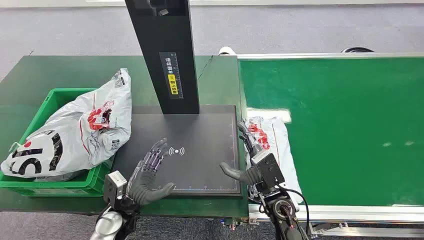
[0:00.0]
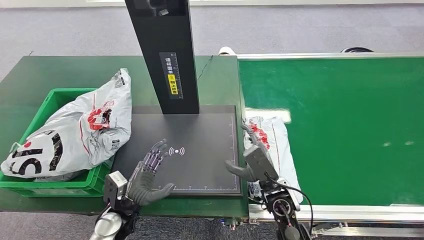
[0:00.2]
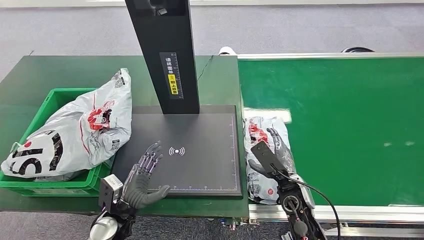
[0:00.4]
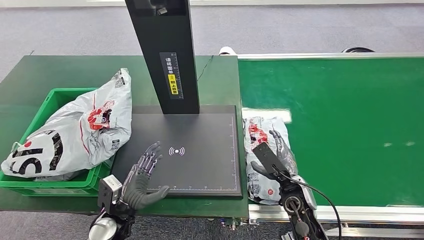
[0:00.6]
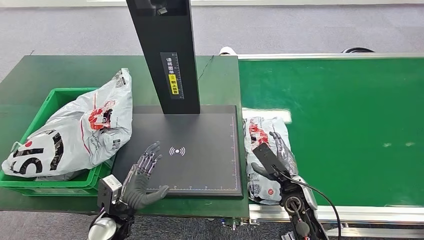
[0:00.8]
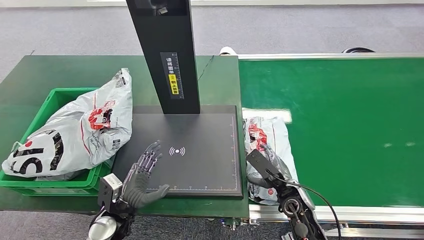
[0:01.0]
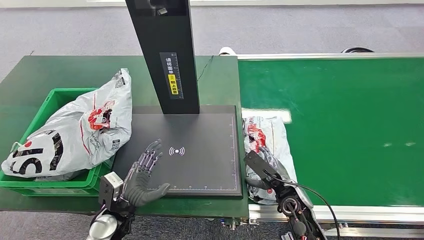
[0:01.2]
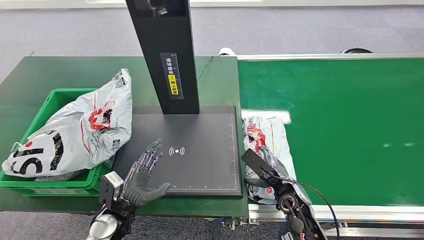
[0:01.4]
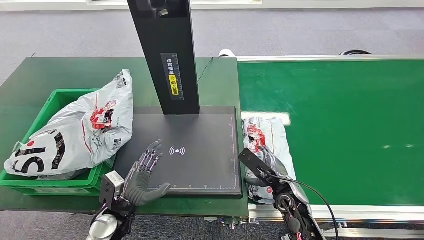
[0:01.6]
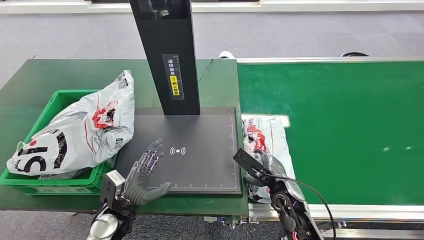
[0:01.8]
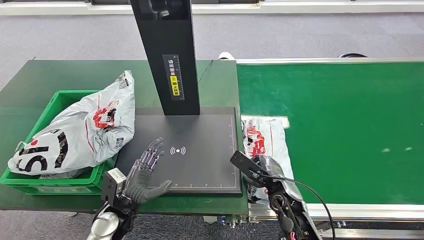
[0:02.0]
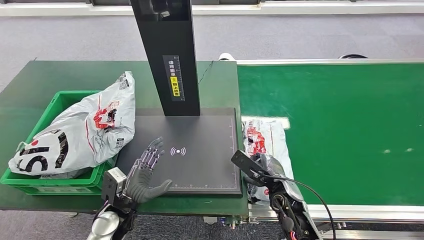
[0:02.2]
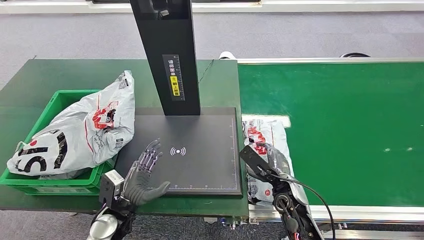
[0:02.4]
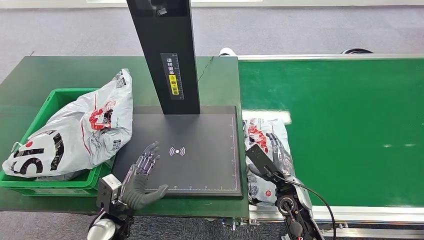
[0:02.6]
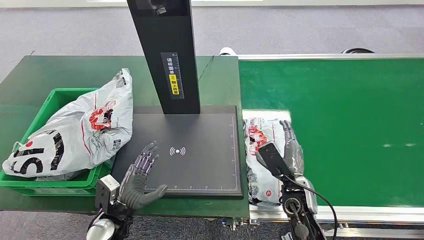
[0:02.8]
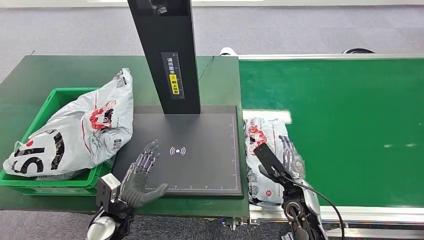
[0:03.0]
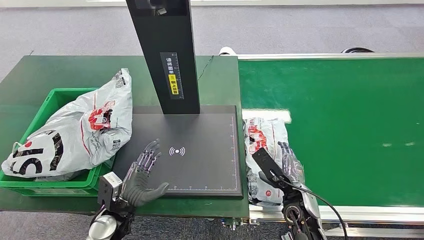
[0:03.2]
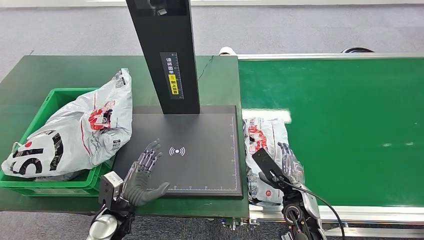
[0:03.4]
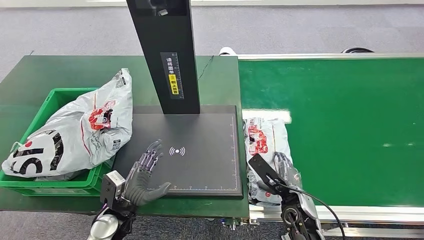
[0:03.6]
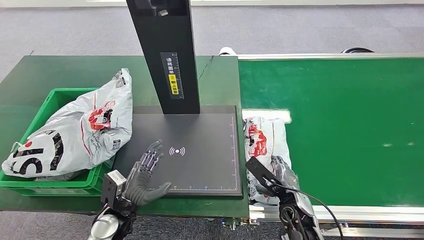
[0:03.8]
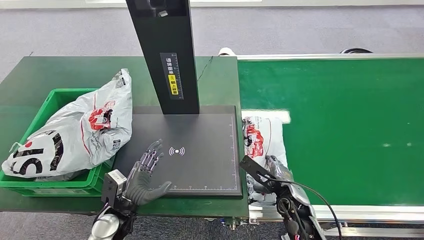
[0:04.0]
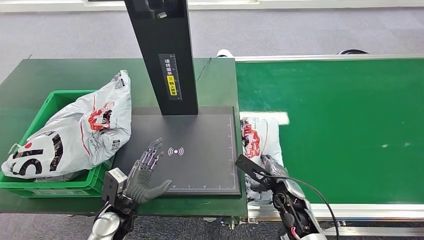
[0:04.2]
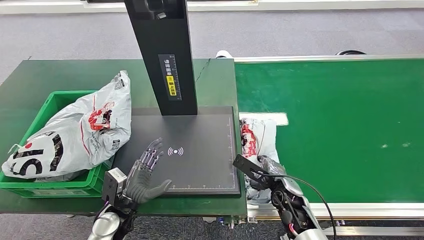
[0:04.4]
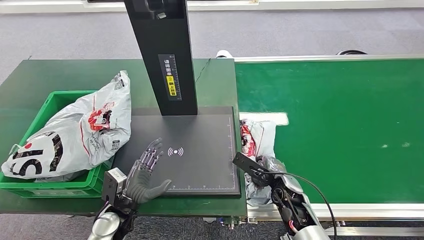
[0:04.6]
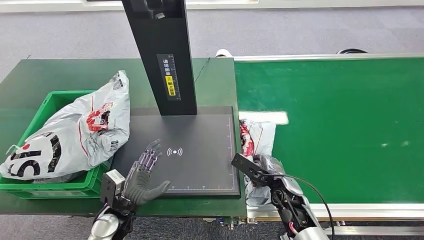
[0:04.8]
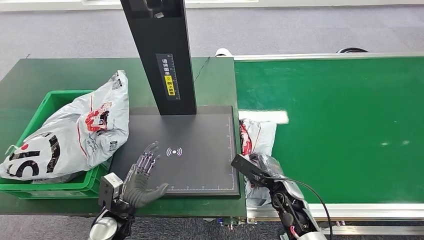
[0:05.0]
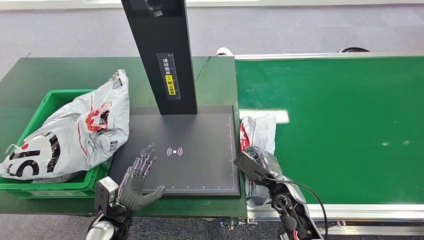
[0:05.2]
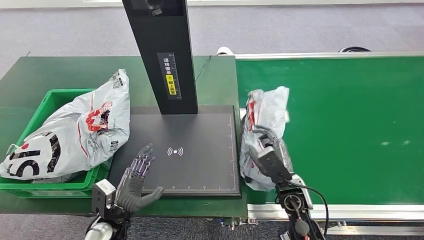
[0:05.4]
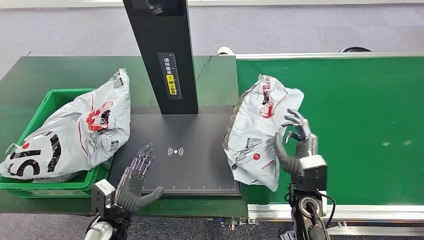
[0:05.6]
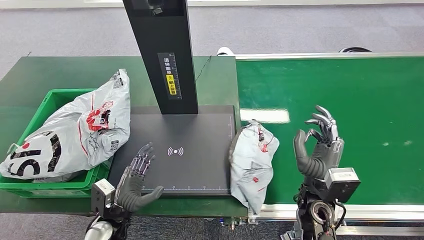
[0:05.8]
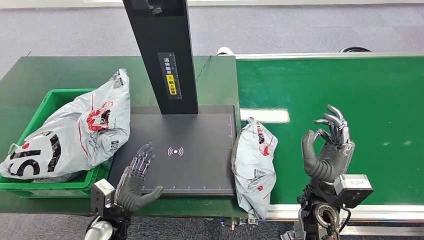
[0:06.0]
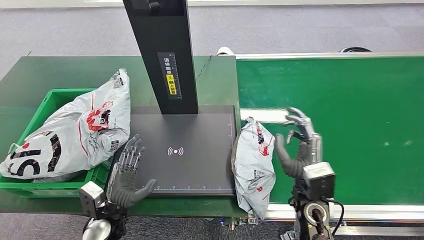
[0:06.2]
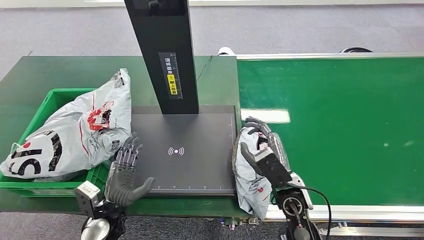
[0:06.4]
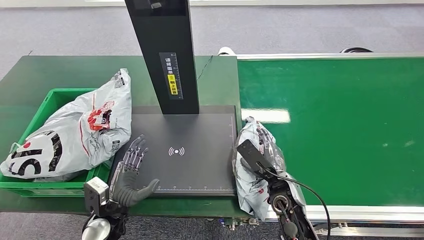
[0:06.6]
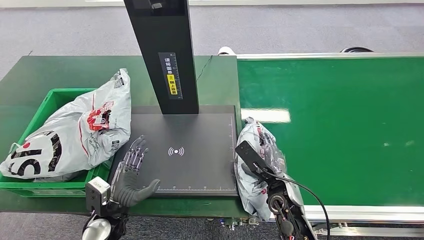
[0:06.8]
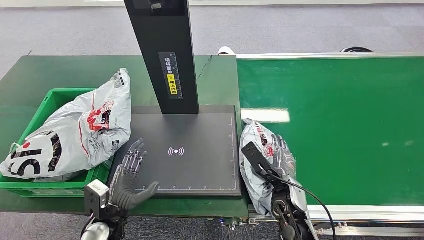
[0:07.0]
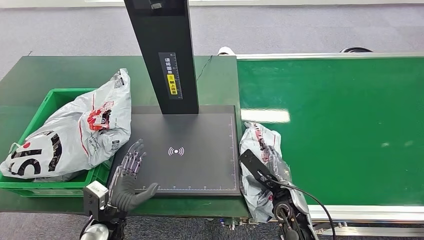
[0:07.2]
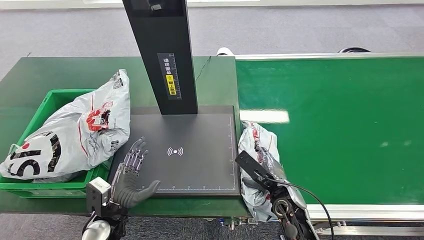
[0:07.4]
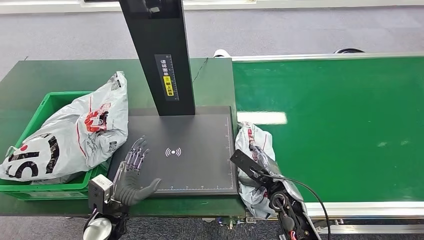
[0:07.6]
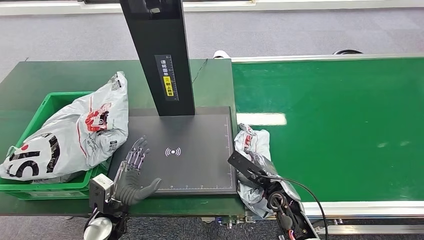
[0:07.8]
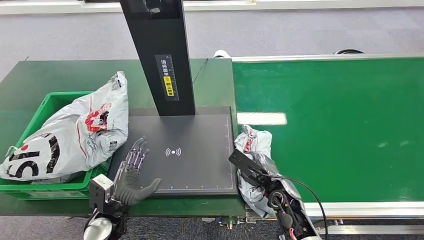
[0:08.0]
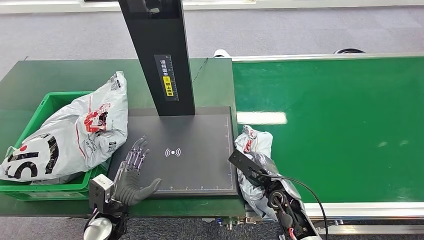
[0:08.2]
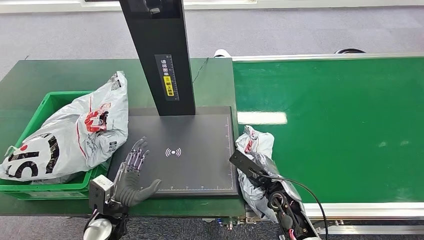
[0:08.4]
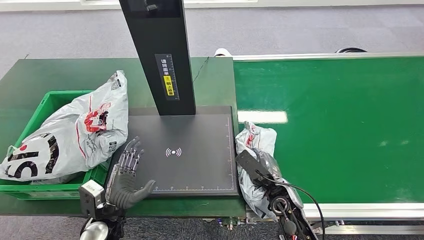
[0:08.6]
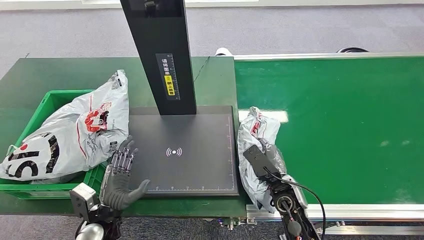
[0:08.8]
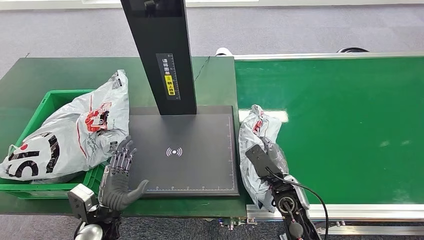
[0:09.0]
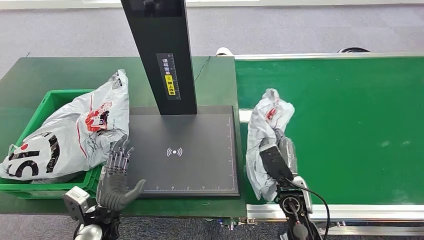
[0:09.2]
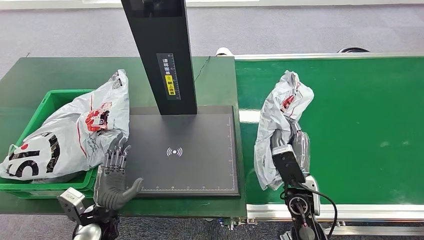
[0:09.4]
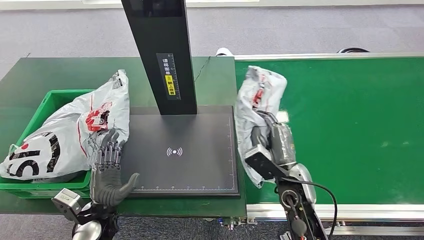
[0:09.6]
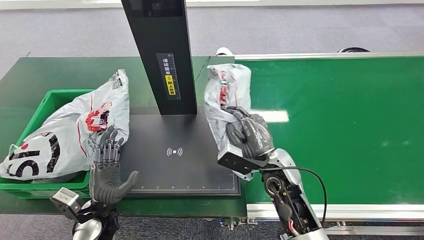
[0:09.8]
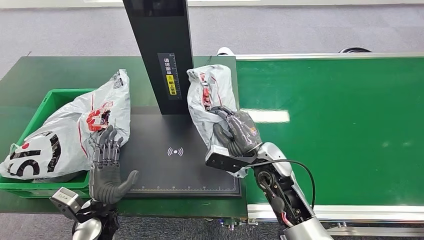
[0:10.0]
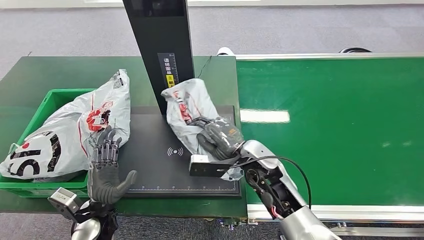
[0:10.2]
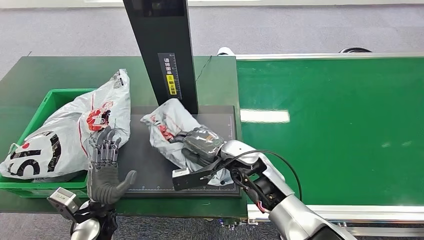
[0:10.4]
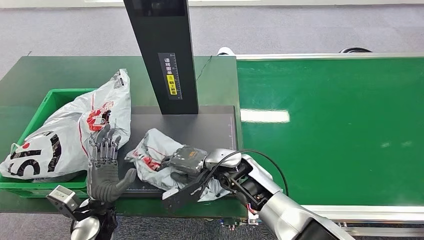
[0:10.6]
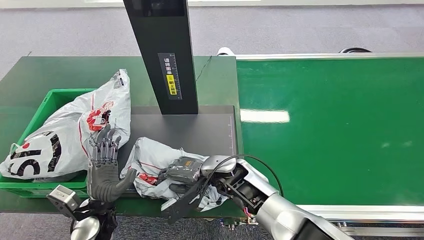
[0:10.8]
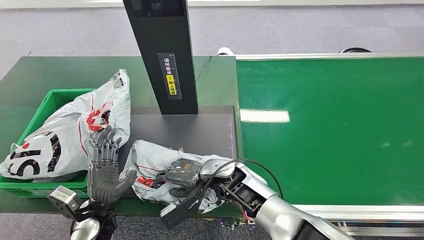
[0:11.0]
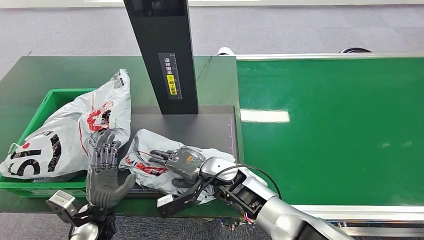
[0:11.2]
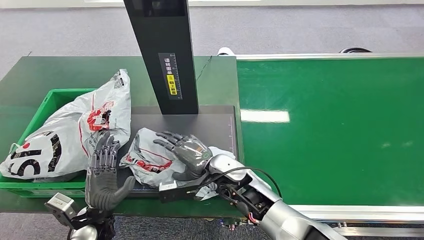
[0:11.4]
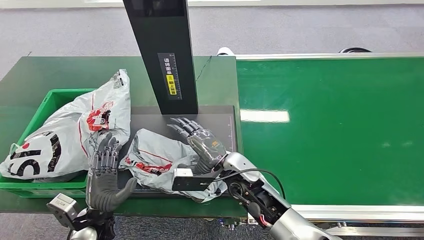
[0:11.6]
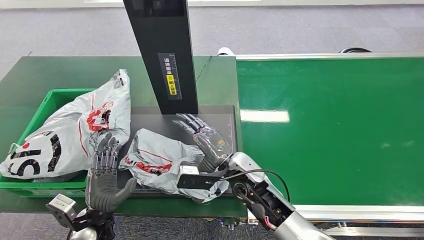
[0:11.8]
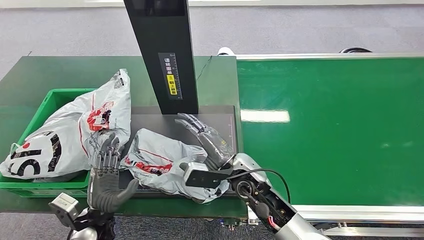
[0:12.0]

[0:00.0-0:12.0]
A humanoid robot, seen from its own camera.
Step, 0:00.0 to 0:09.4: Pick up the package from the conveyor belt.

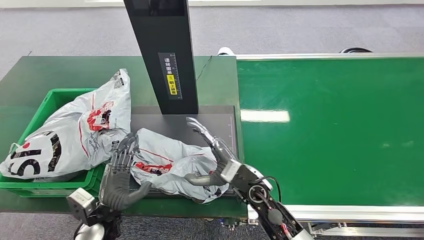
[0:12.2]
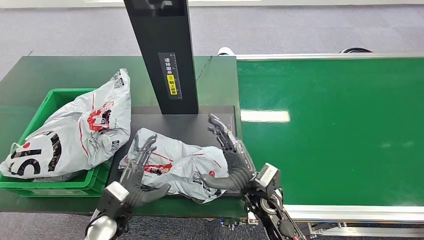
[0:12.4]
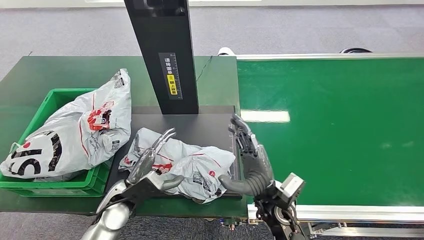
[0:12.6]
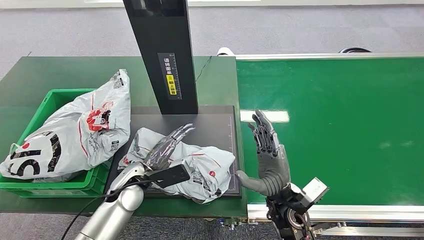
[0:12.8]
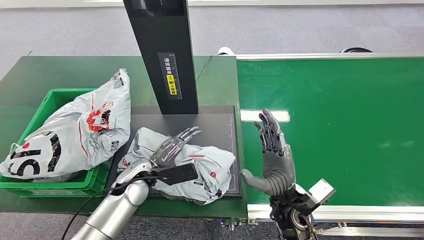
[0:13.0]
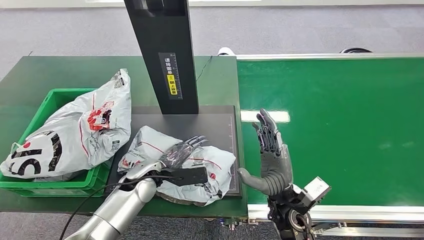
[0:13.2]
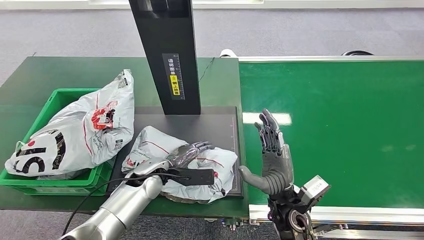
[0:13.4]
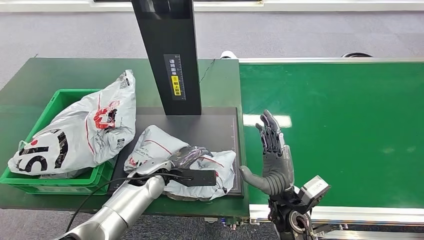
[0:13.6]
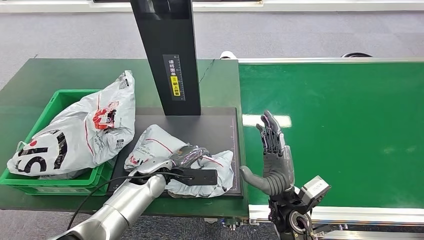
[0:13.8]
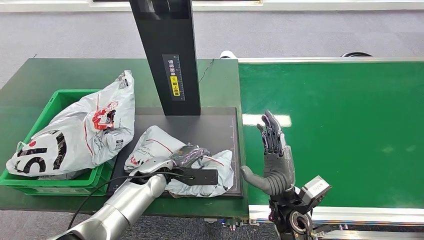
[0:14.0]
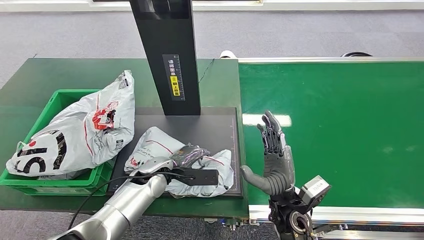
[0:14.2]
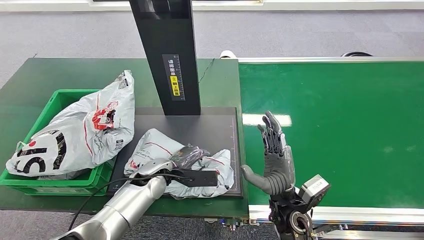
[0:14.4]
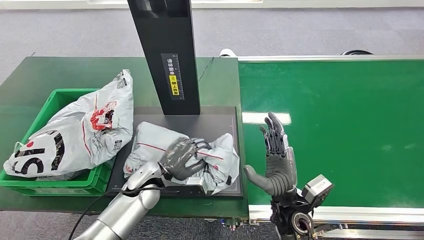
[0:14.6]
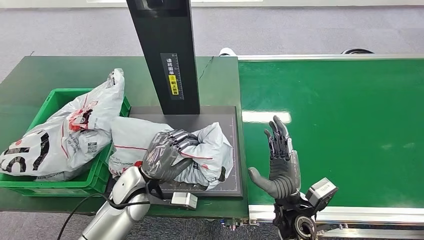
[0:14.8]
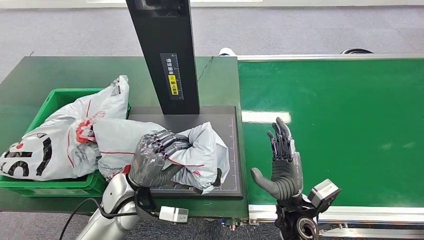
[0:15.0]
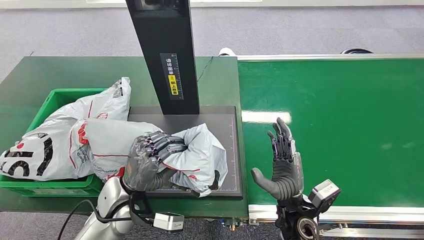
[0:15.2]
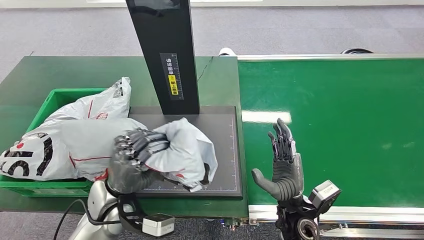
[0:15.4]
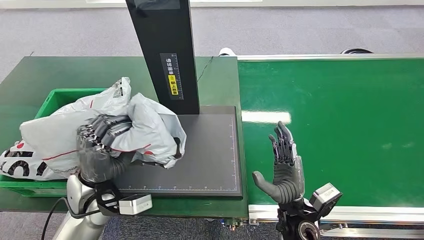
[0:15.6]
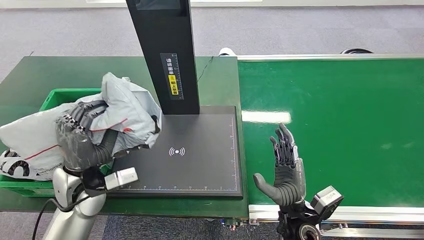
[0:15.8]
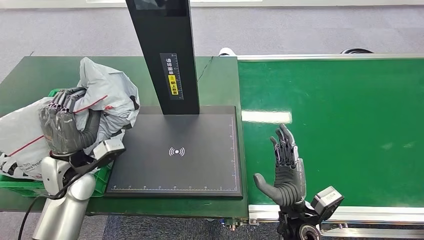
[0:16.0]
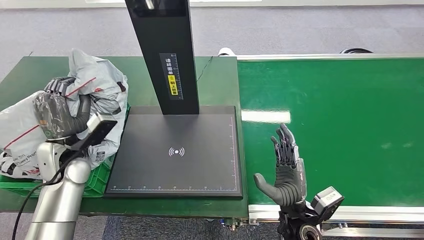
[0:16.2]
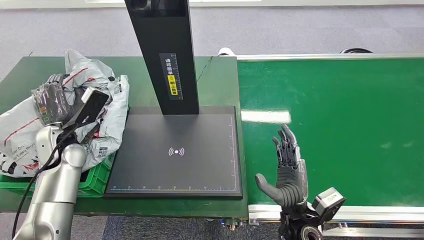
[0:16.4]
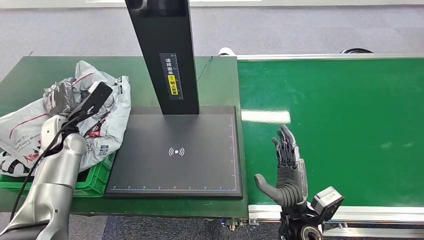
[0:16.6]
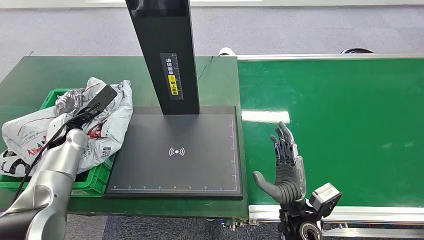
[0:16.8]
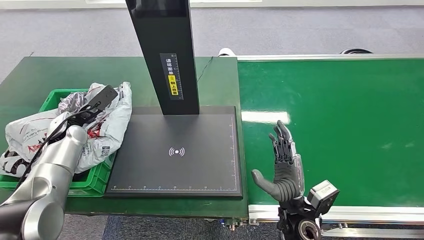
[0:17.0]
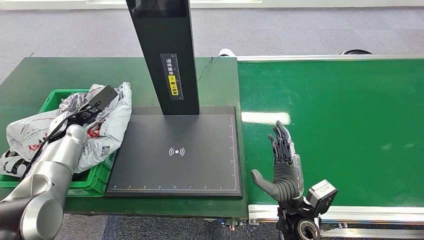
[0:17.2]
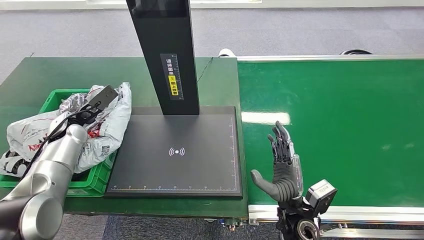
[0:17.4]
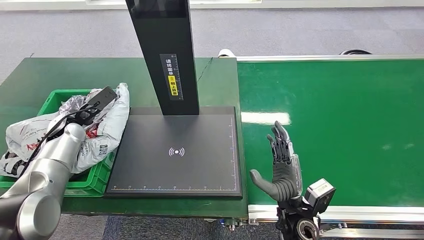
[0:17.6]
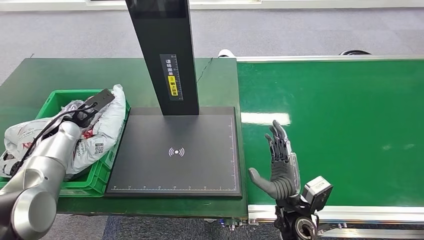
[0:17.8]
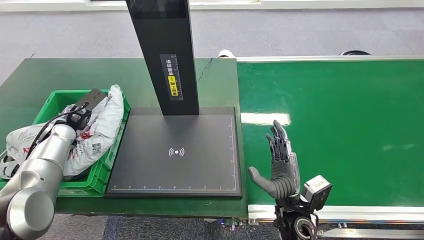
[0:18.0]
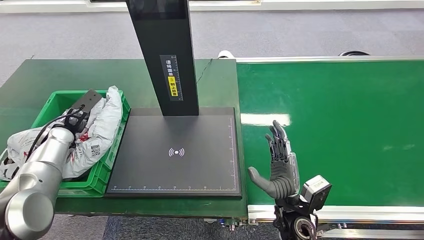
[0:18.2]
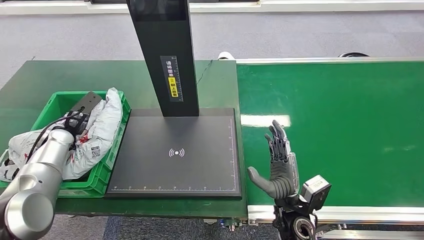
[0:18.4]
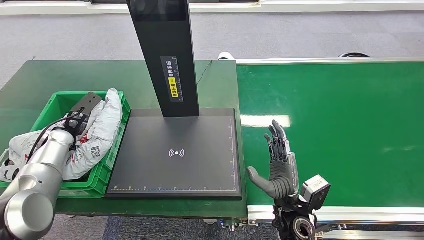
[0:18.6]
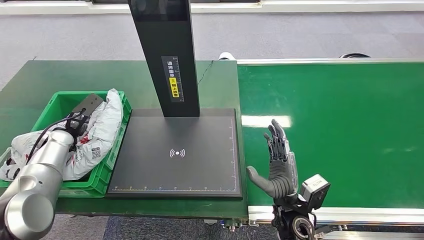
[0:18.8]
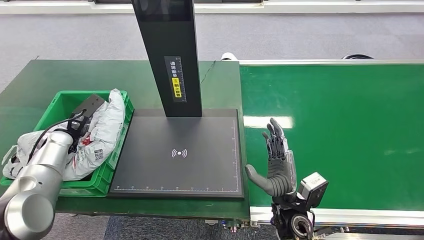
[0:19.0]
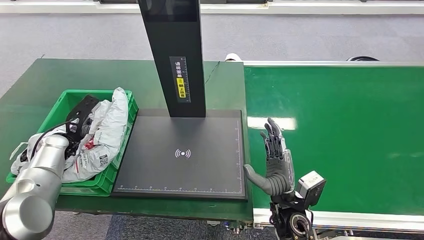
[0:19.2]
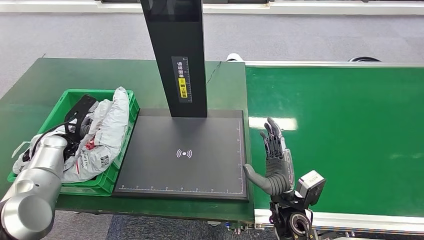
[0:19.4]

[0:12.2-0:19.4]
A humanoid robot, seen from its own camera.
Step, 0:12.8 to 0:15.4: Pick up the package from the inbound machine.
